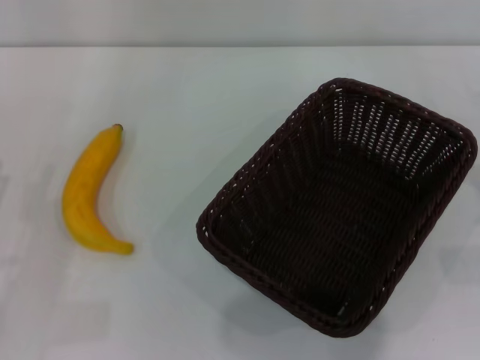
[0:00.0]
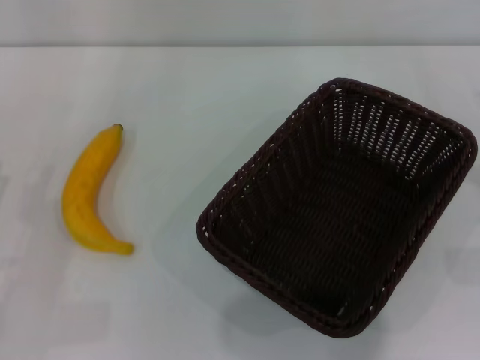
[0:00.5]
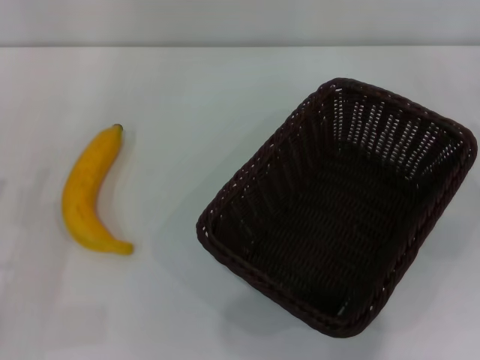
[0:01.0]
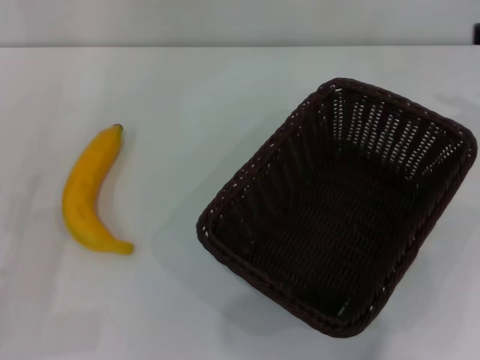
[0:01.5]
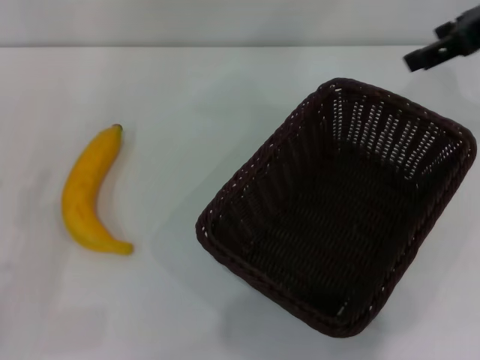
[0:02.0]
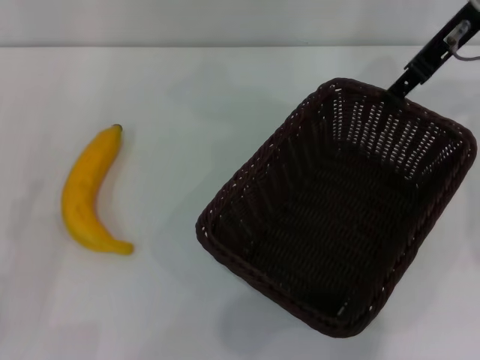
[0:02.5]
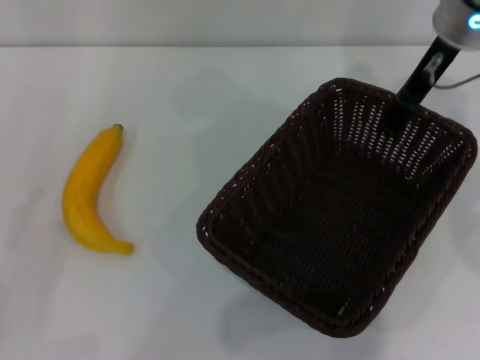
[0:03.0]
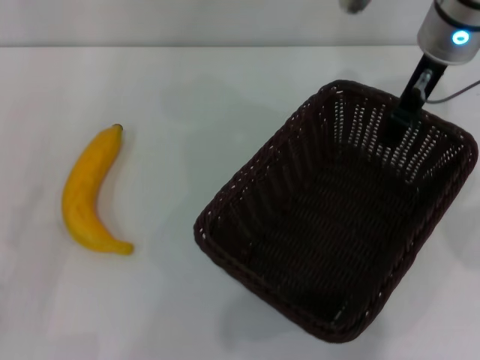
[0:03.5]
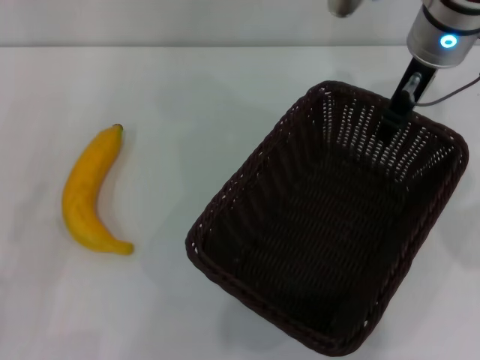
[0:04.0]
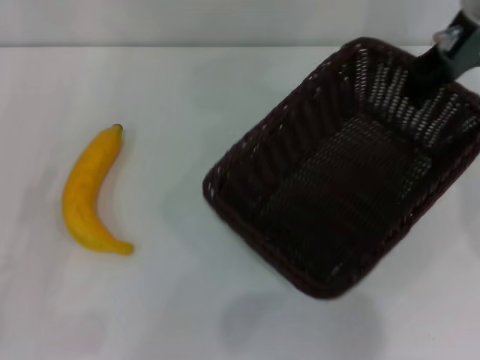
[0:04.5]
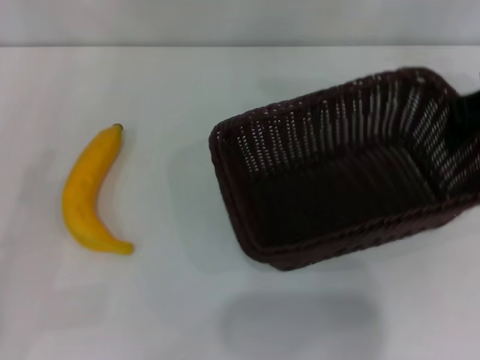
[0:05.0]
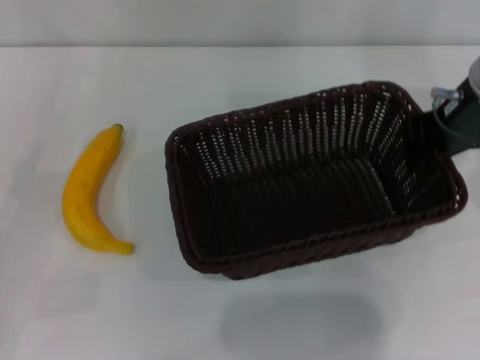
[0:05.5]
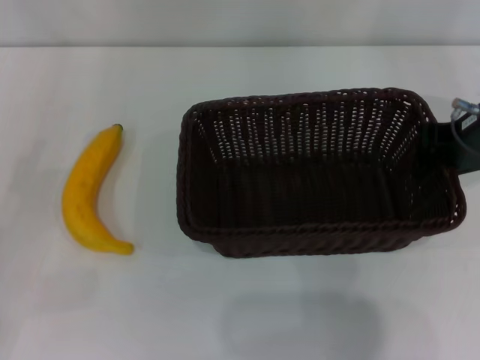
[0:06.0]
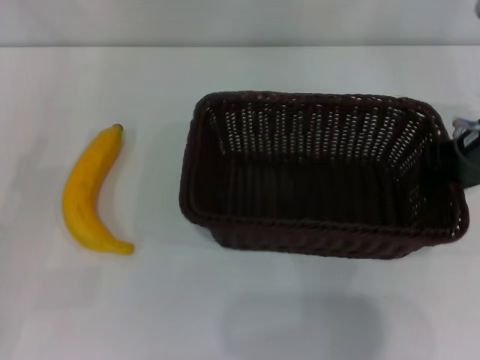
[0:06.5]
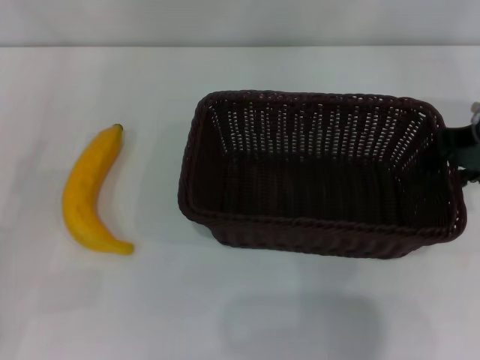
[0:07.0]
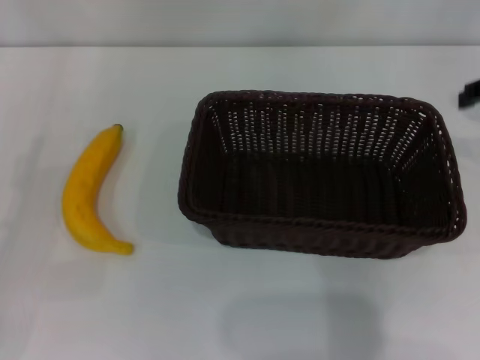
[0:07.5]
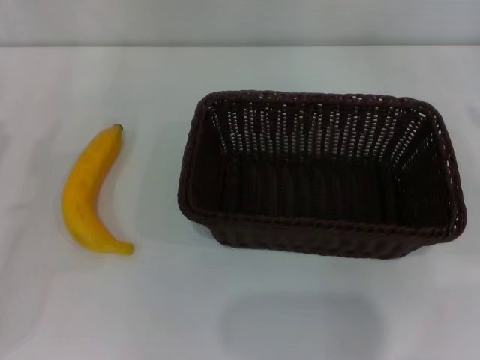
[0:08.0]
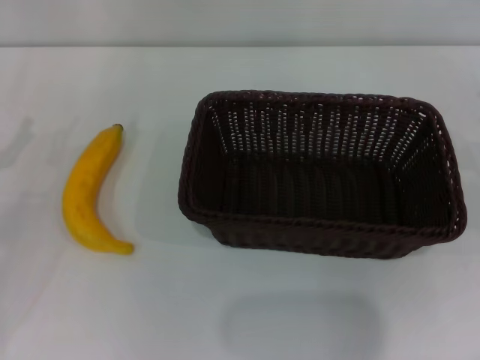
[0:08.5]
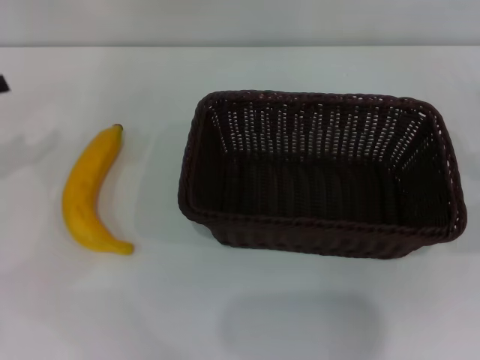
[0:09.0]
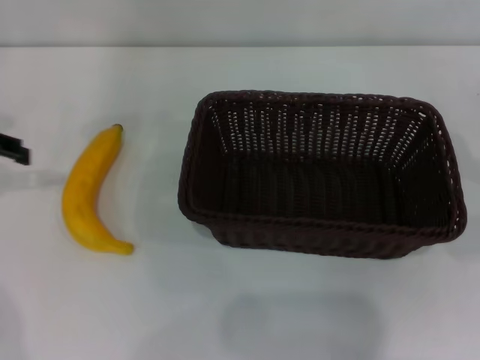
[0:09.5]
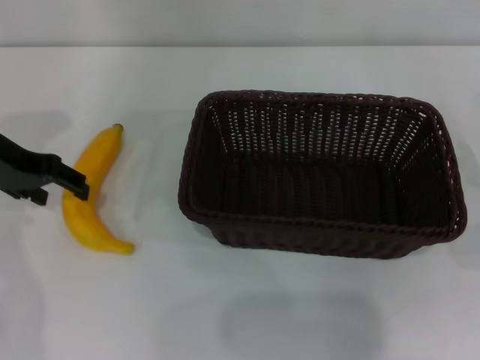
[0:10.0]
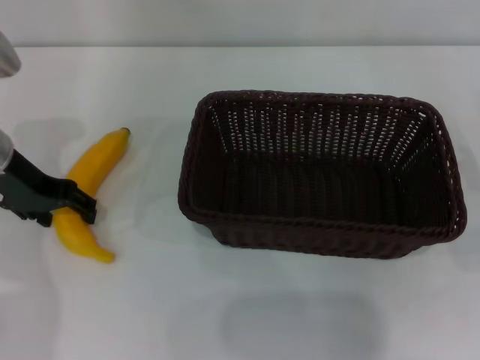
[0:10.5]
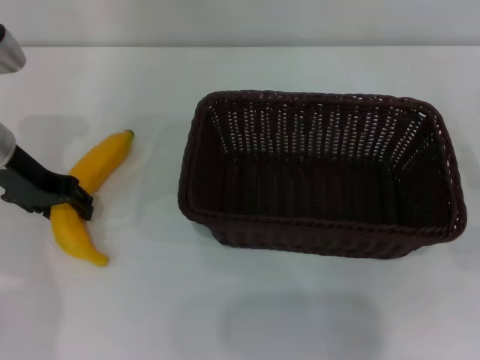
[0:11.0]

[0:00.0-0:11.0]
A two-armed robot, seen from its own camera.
Step, 0:00.0 to 0:04.0: Pick up the dark basket with the right gripper.
Step, 0:04.5 to 0:07.0: Place the dark basket in the center of view with the right gripper.
0:00.0 to 0:02.0: The right gripper travels upward, forward and to the left by some 30 cm.
0:02.0 to 0:03.5: The right gripper shifts some 10 cm to the left and downward.
0:03.5 to 0:05.5: The right gripper heads backward, covering approximately 5 cm, and closes up; the left gripper goes some 5 cm forward.
0:05.5 to 0:07.5: The right gripper is displaced to the right by approximately 10 cm, and opens its fingers.
0:09.0 to 0:11.0: The left gripper travels to the right and forward by about 15 cm.

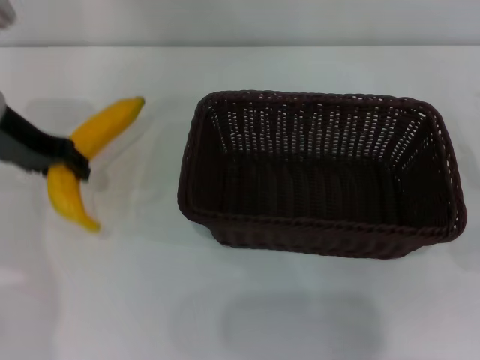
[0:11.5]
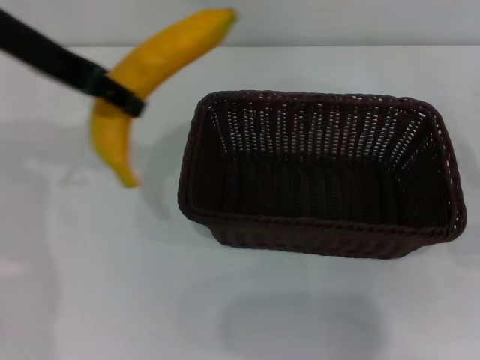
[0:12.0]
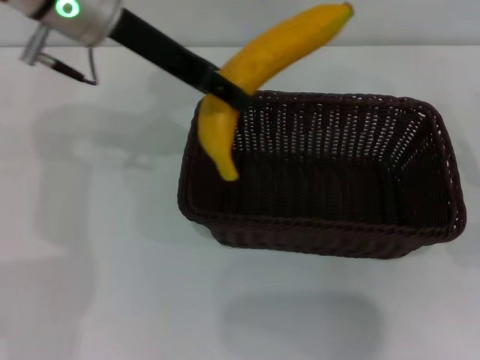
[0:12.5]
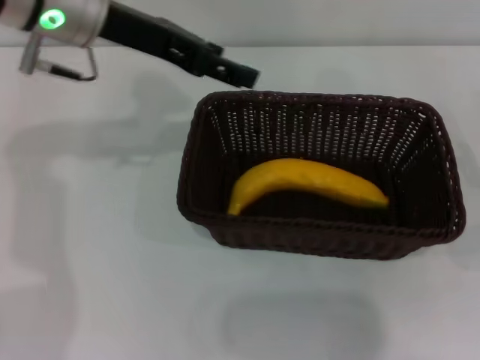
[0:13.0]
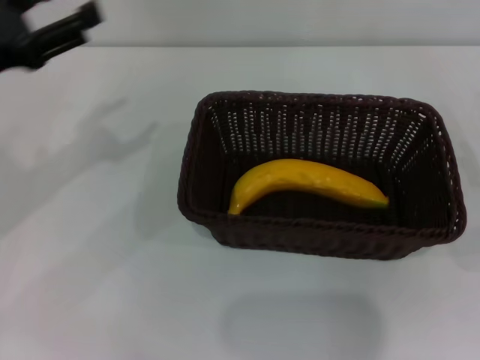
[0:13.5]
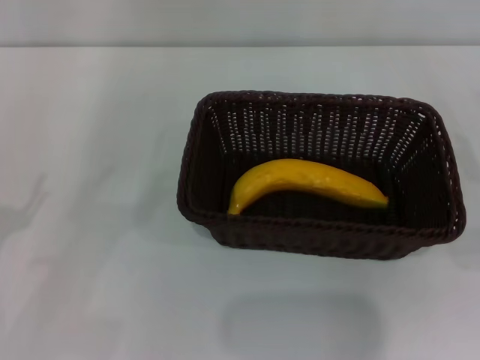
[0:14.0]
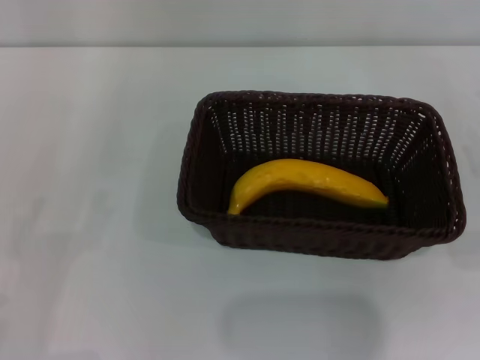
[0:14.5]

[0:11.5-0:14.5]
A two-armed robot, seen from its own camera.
Step, 0:12.0 to 0:12.5: Place the banana into the dark basket with the left gripper.
0:11.5 to 0:13.0: The left gripper heads to the right and upward, covering approximately 10 cm, and opens up.
0:13.0 to 0:14.5: The left gripper travels backward, downward and to the left by roughly 35 cm, and opens up.

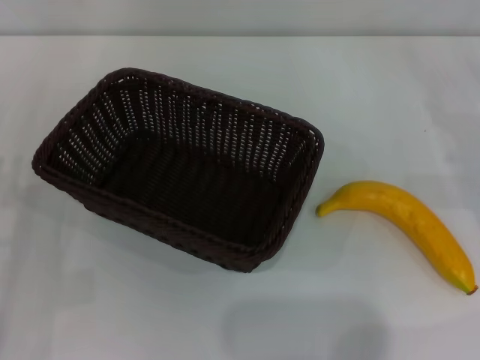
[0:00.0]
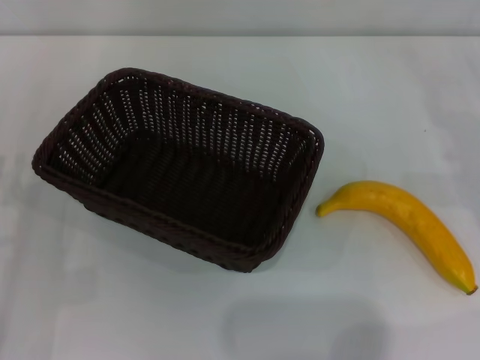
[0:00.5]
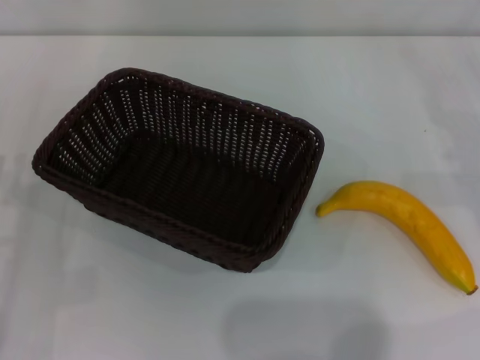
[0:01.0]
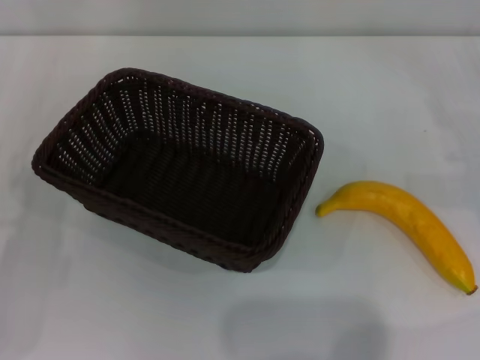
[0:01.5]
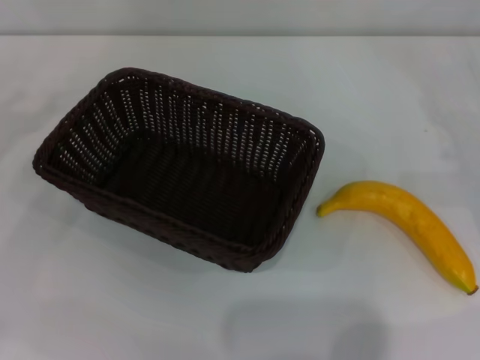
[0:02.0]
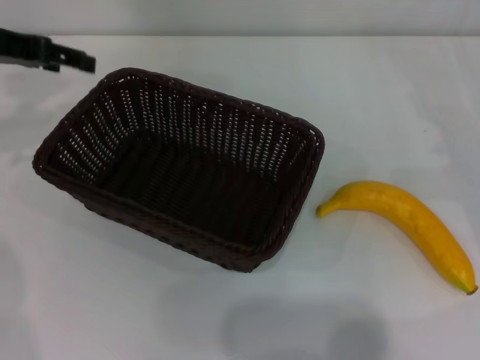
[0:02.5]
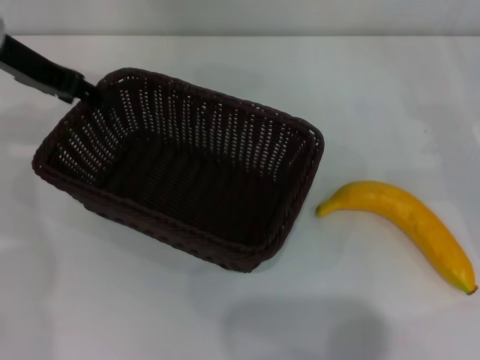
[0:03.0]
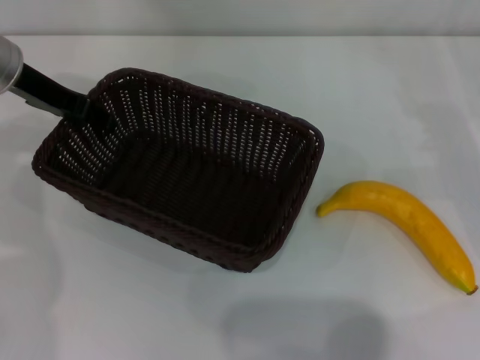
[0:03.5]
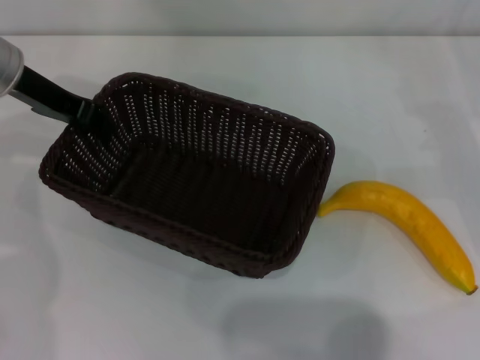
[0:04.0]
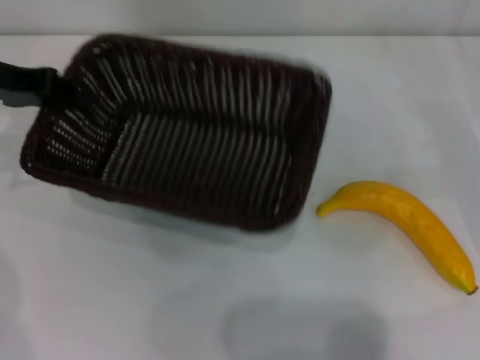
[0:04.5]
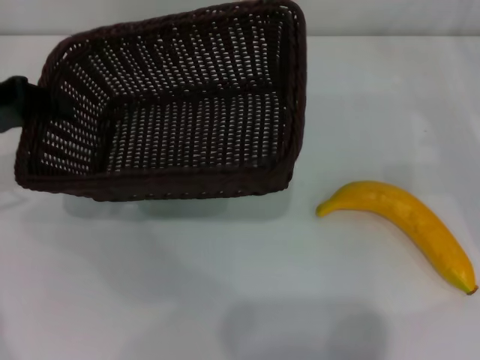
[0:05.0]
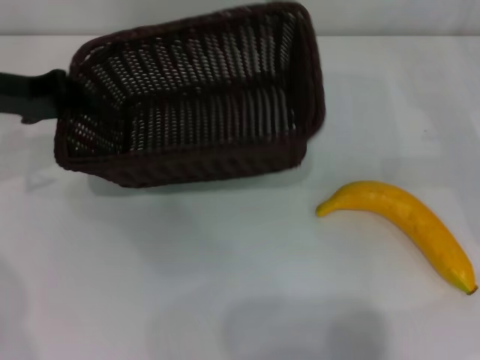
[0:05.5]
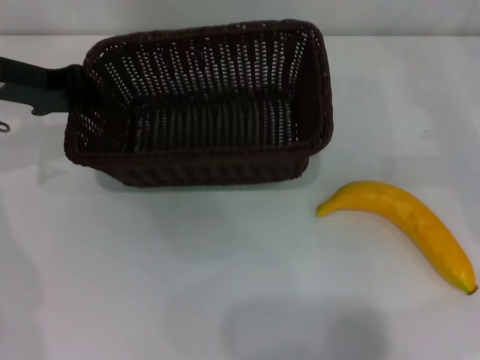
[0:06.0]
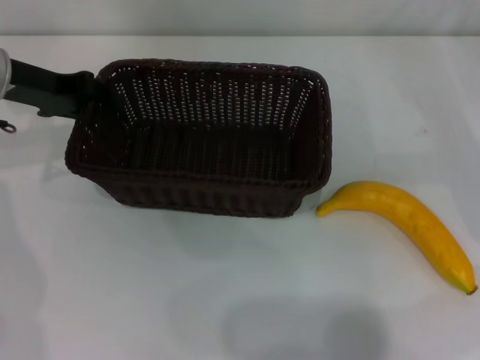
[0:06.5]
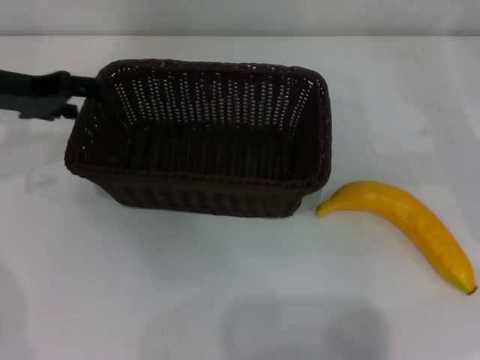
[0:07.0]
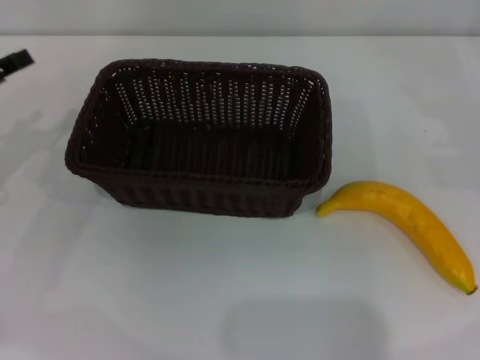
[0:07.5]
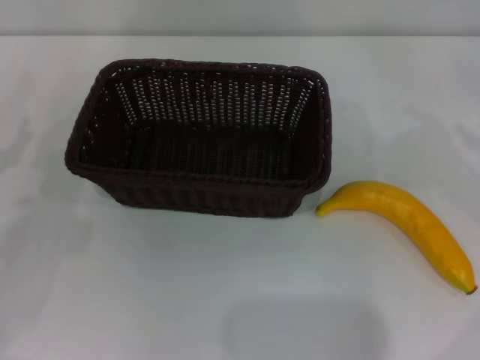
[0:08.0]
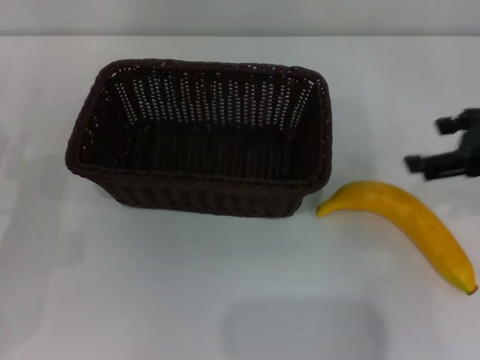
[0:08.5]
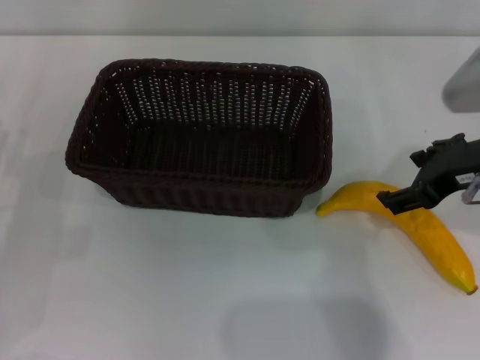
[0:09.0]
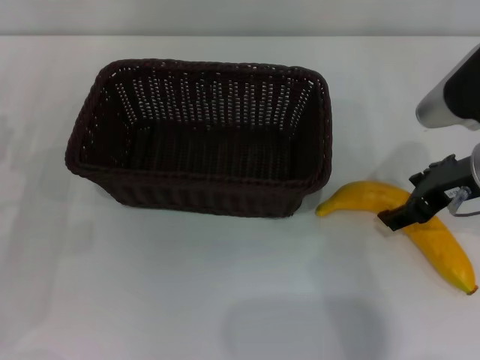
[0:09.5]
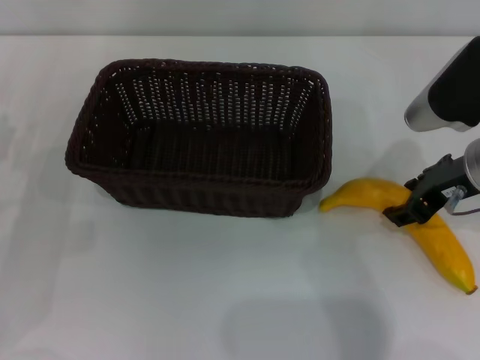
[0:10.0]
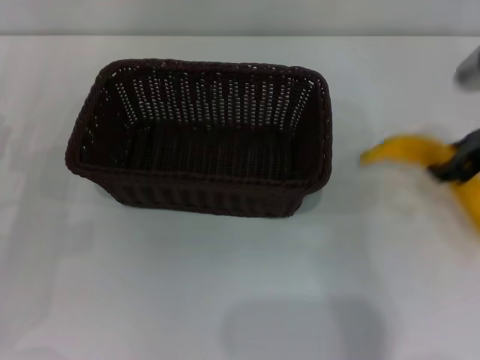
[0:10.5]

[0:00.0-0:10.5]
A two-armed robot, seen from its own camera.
Step, 0:00.0 to 0:04.0: Pick up the dark basket with the left gripper.
Step, 0:04.5 to 0:07.0: Place the dark basket in the center of view with the left gripper.
0:02.0 to 0:04.0: The left gripper heads to the right, forward and upward, covering roughly 15 cm, and closes its fingers.
0:04.0 to 0:06.5: The left gripper goes to the left and returns, about 10 cm each way.
0:06.5 to 0:08.5: The right gripper heads upward, to the left and backward, covering about 15 cm; the left gripper is displaced backward, downward and to the left by some 20 cm, and opens its fingers.
0:08.5 to 0:10.5: The right gripper closes up.

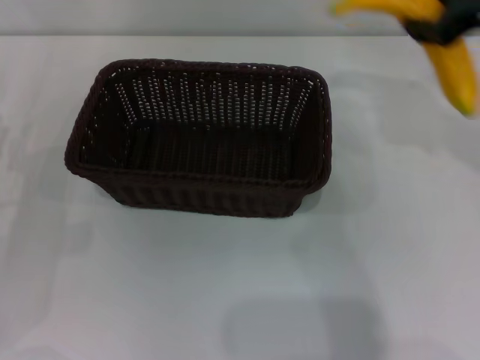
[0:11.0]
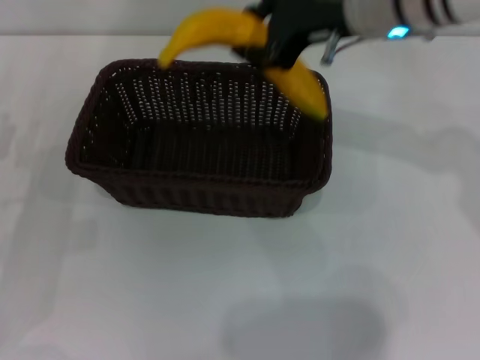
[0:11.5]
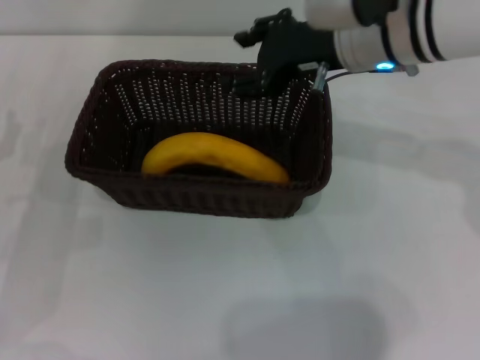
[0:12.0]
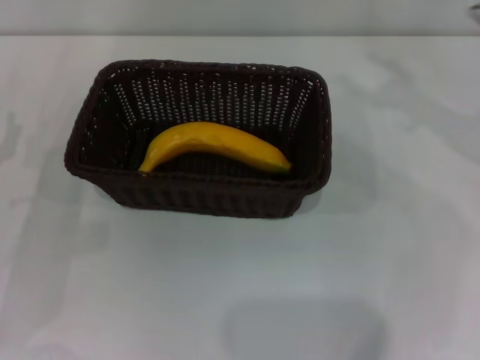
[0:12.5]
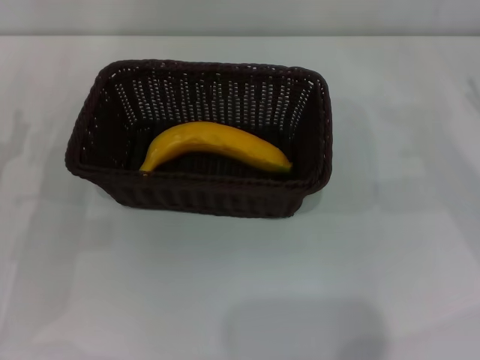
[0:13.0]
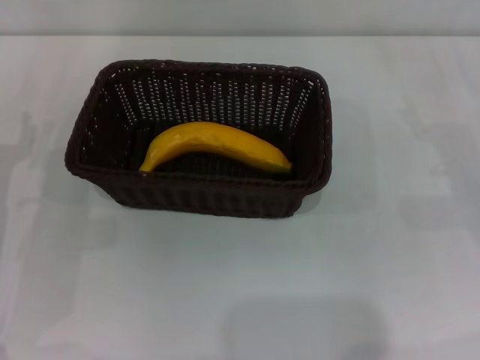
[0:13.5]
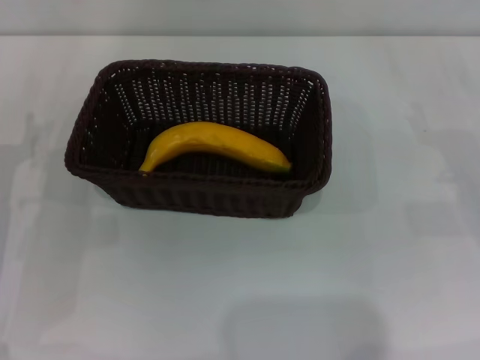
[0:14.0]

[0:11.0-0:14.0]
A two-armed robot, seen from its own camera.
Step, 0:11.0 to 0:12.0: Place the banana into the dark basket with the right gripper.
0:11.0 to 0:12.5: The right gripper moves downward, about 5 cm, goes to the left and returns, roughly 10 cm each way, and opens.
